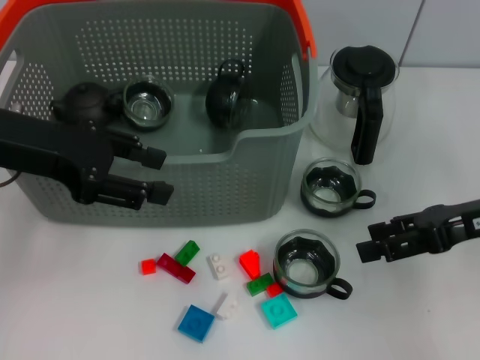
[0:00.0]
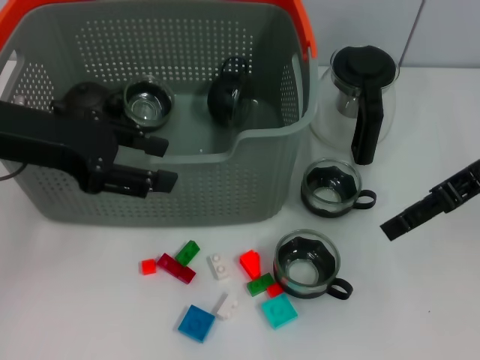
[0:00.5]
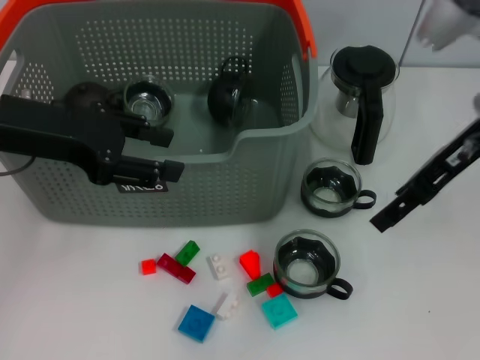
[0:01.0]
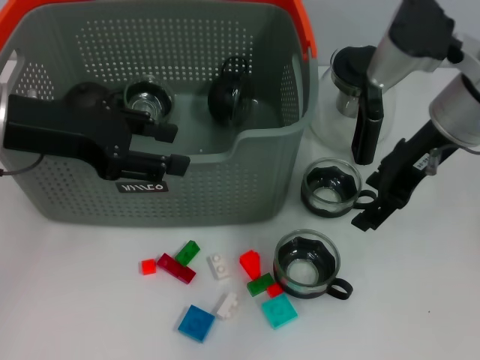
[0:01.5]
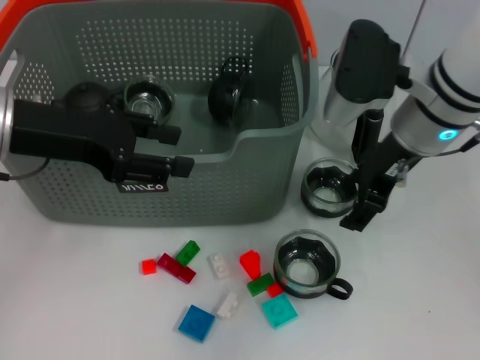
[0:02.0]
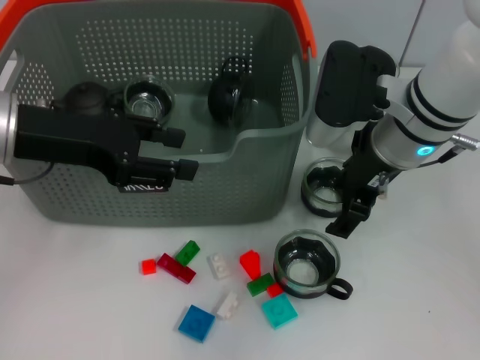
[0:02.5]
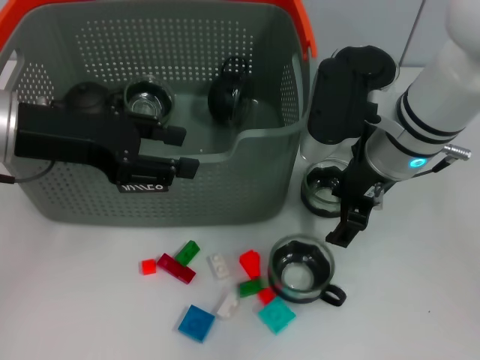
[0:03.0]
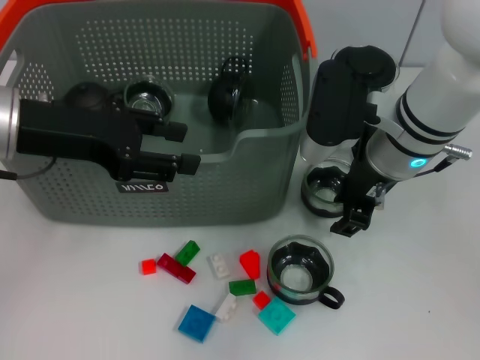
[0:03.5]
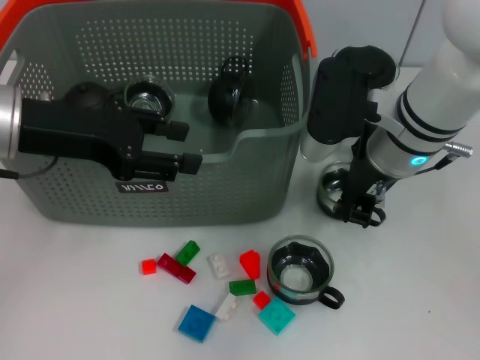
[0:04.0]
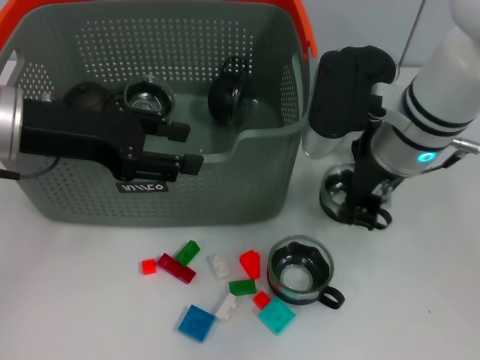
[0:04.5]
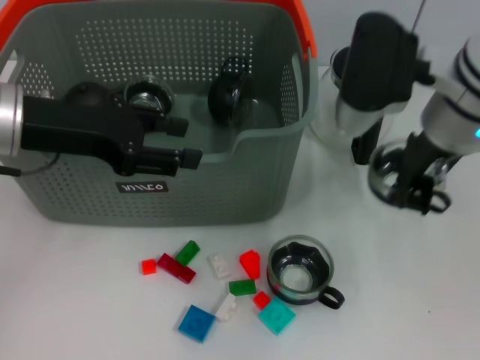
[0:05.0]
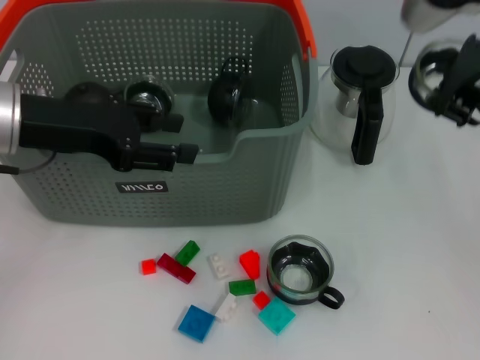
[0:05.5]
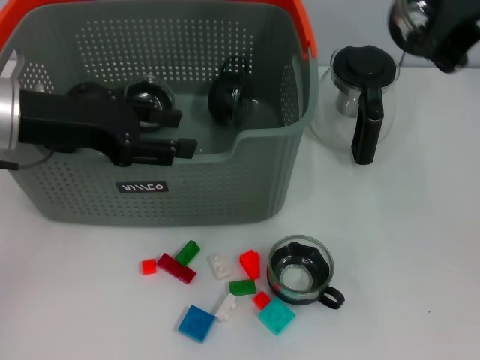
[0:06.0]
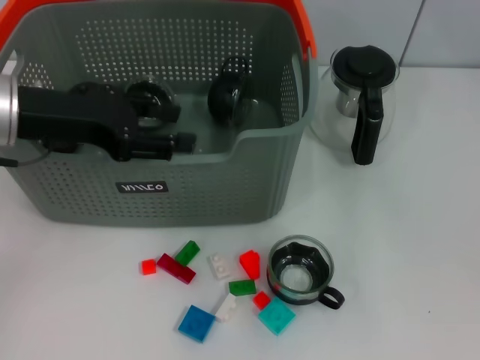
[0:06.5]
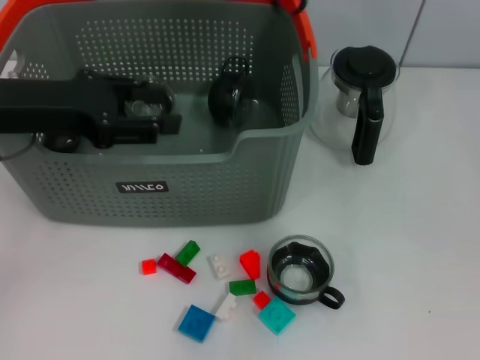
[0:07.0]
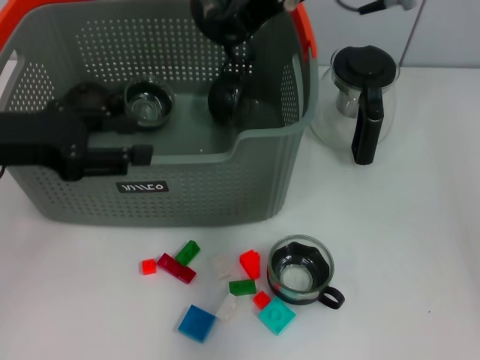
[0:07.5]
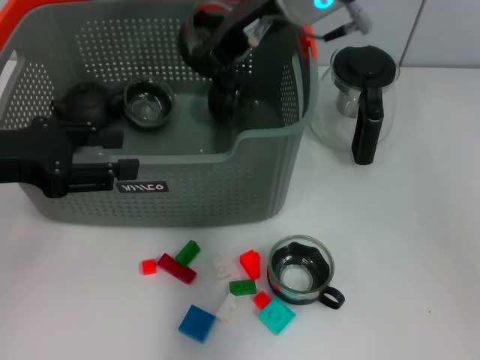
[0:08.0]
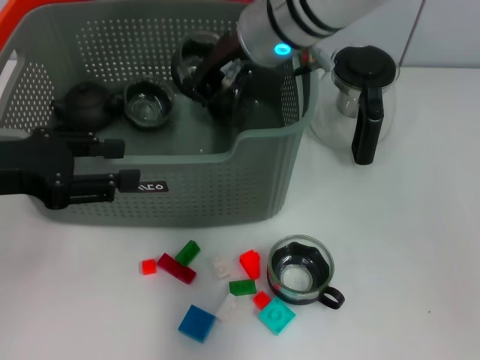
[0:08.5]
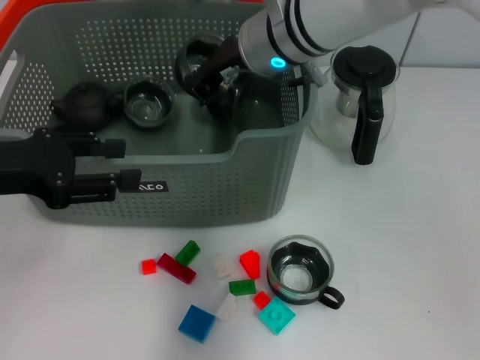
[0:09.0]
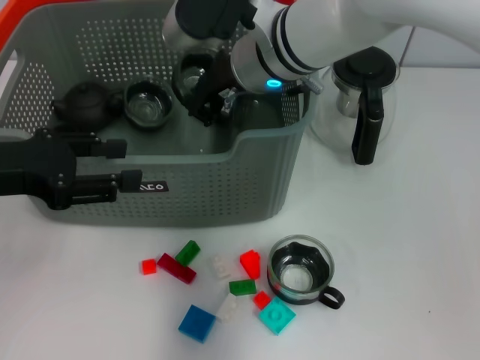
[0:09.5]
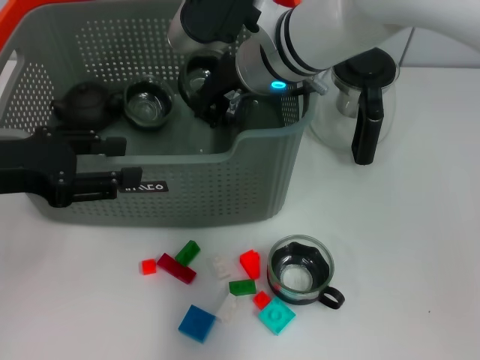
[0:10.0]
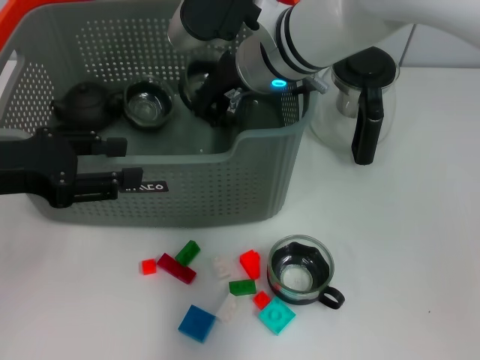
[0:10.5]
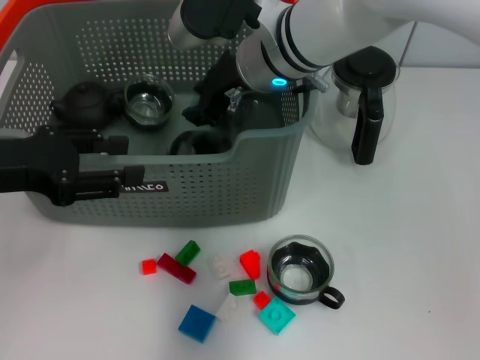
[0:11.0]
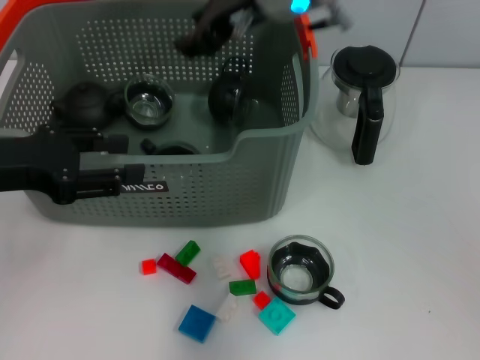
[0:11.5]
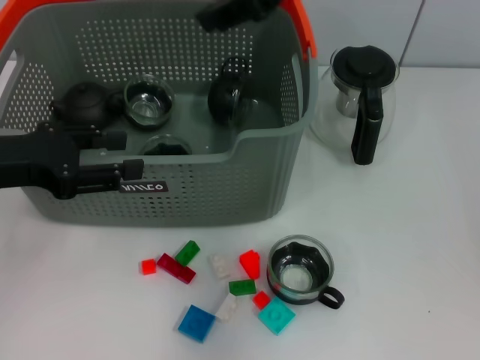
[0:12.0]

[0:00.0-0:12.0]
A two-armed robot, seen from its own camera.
Task of the whole recording: pick up the teacup on the table and place it into the storage bin, pick up the block on the table and place it into the storage bin.
Step, 0:00.0 to 0:03.5: Grasp the cup with right gripper.
Step, 0:04.0 to 0:11.5: Place the cup in the storage box with right gripper.
0:00.0 to 0:02.0: The right gripper moves to the left and forward, about 15 cm.
0:02.0 to 0:04.0: The right gripper closes up.
0:04.0 to 0:06.0: The right gripper heads upward, covering roughly 20 cm.
0:06.0 to 0:08.0: The right gripper travels to the left, forward and downward by about 15 cm. Meanwhile the left gripper shifts by about 5 cm.
0:08.0 to 0:10.0: The right gripper heads downward, covering approximately 10 cm.
0:10.0 to 0:12.0: The right gripper moves upward and to the right, approximately 20 cm, and opens up.

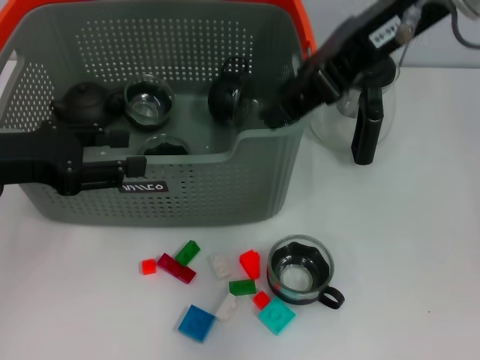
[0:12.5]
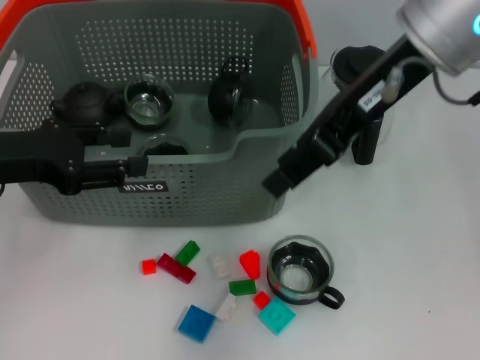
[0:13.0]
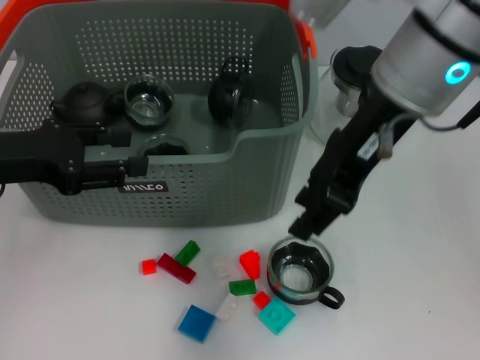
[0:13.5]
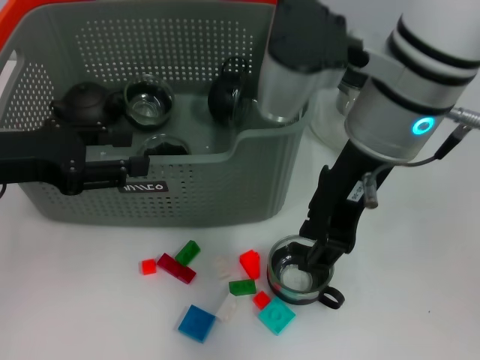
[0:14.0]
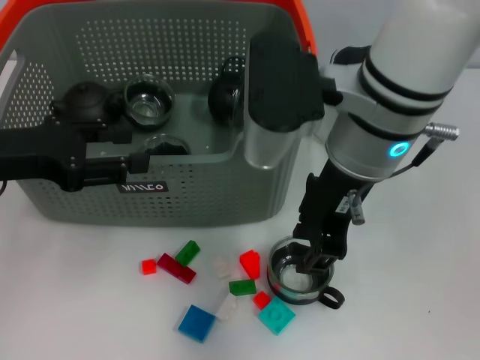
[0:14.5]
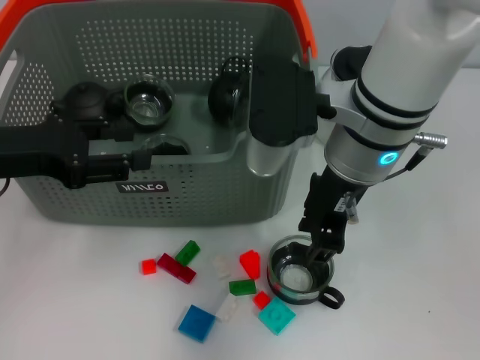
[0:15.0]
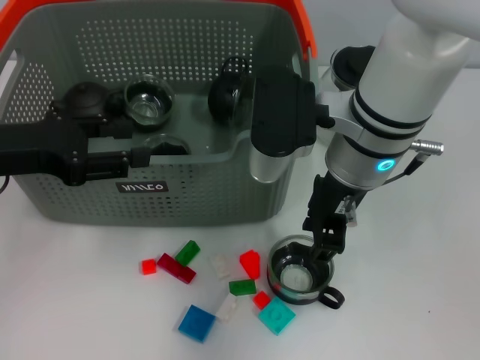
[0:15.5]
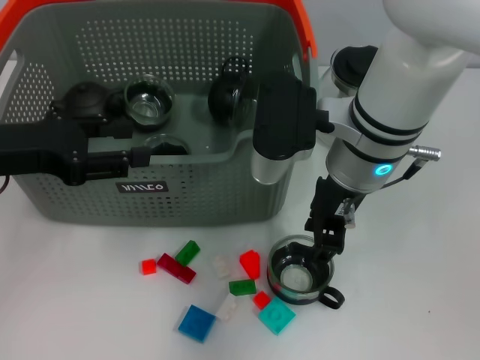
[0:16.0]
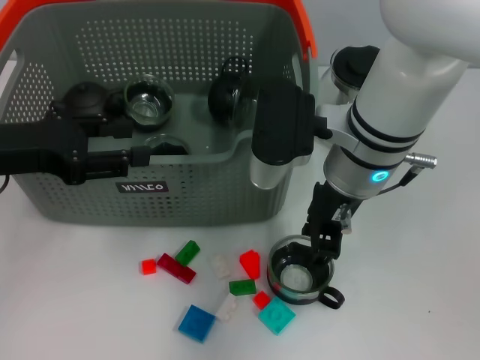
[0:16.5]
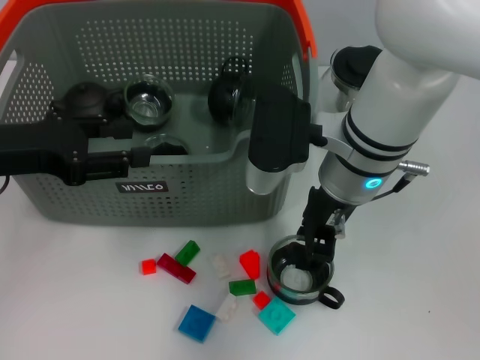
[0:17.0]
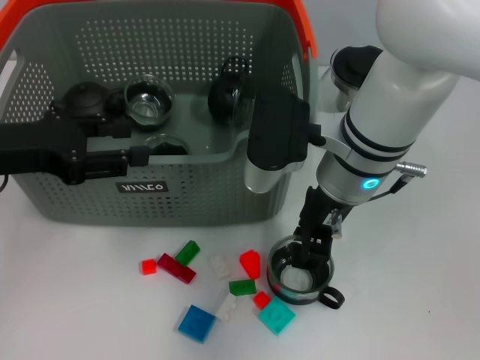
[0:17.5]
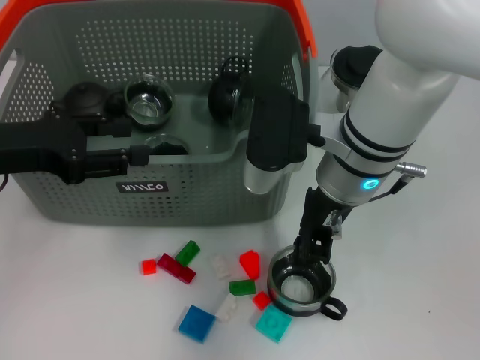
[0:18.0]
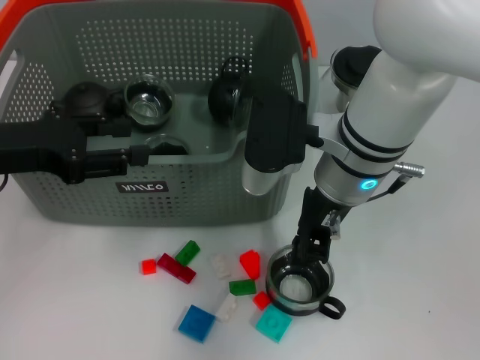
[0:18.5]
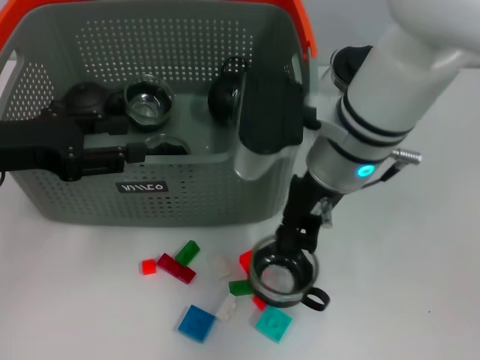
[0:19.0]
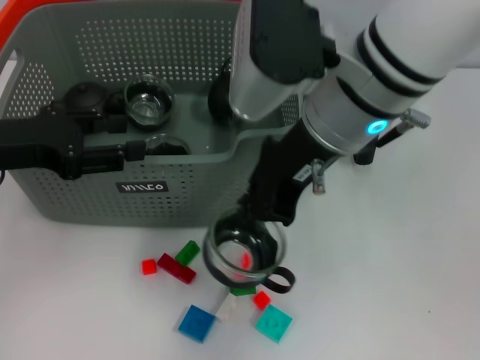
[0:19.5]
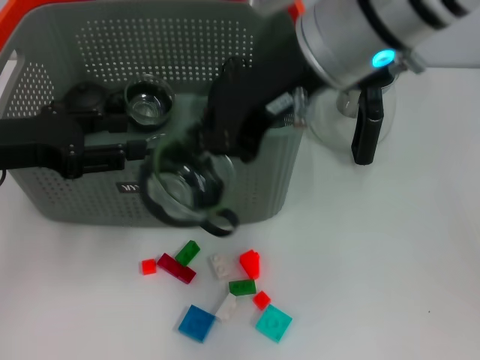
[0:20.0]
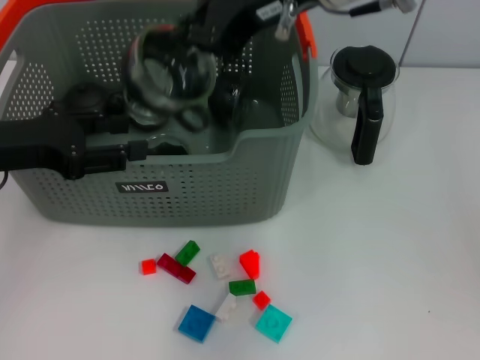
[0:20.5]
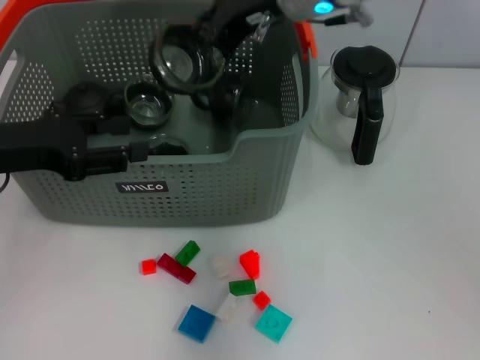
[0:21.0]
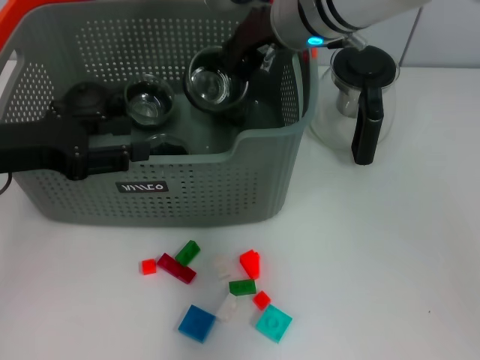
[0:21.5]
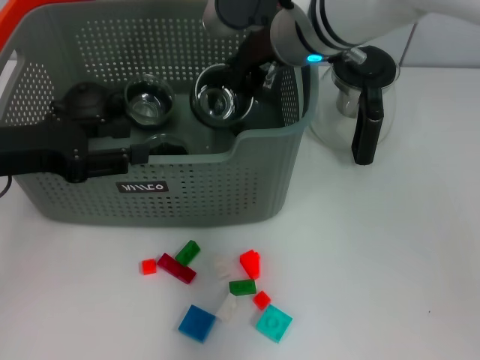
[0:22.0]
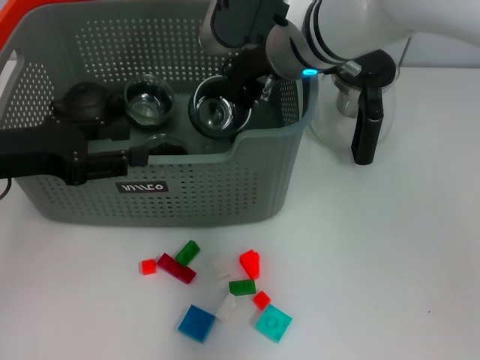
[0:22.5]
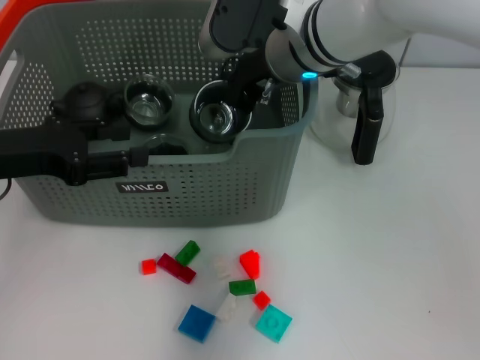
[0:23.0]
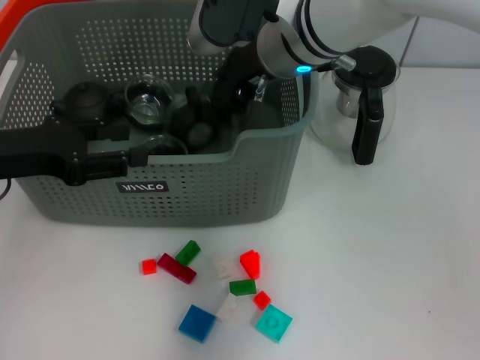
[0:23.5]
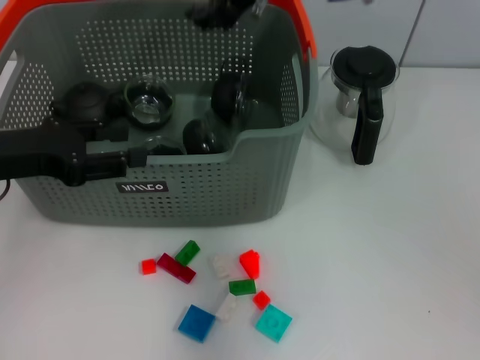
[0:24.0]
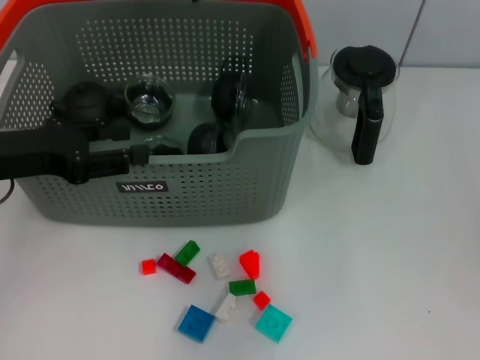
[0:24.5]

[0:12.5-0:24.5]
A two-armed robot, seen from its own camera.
Task of the whole recording: pick up the teacup on the table and place it into the storage bin, pick up the block on the table and place it into the storage bin.
Step, 0:12.5 to 0:18.0: Grasp the cup with right gripper.
Step, 0:18.5 to 0:24.0: Place the cup in the storage box with right gripper.
0:12.5 to 0:14.5: The right gripper heads downward and to the left, covering some 15 cm.
0:14.5 to 0:16.5: The right gripper heads downward, covering approximately 5 cm.
0:16.5 to 0:18.5: The right gripper closes up.
0:18.5 to 0:20.5: The right gripper shifts roughly 15 cm upward.
0:20.5 to 0:22.5: The right gripper moves downward and forward, some 15 cm.
0:22.5 to 0:24.5: The right gripper is displaced upward by some 15 cm, and opens its fingers.

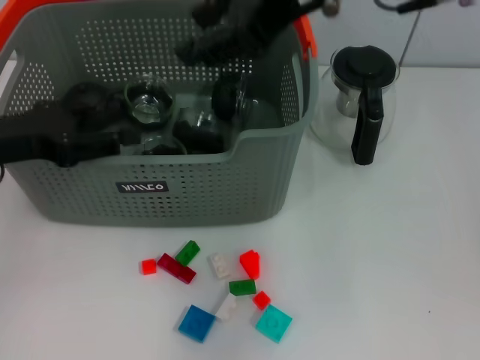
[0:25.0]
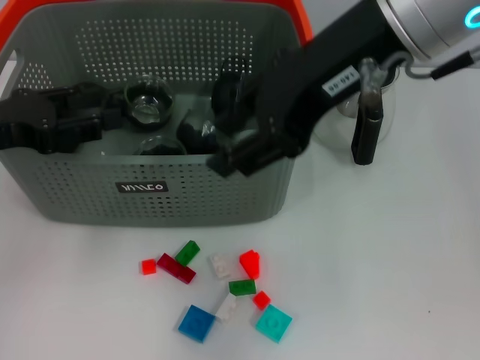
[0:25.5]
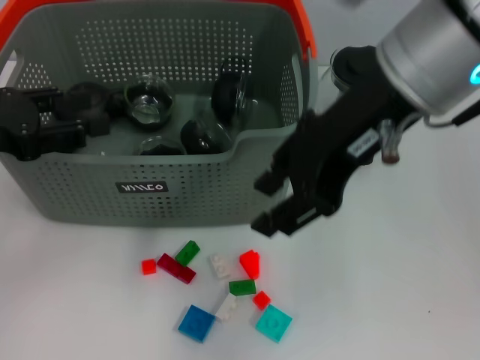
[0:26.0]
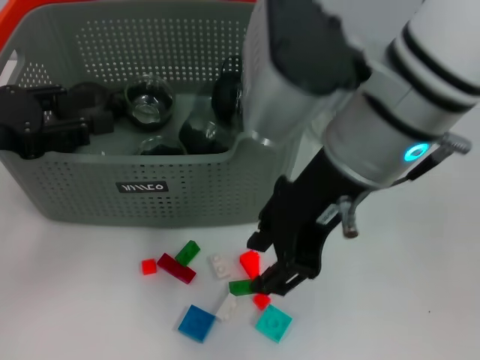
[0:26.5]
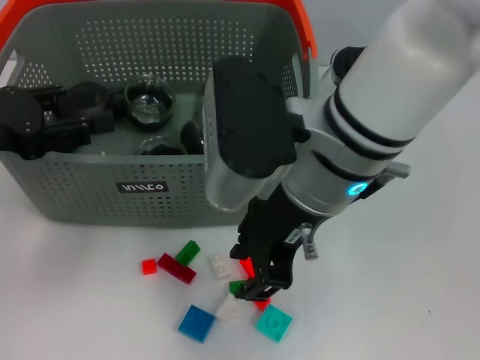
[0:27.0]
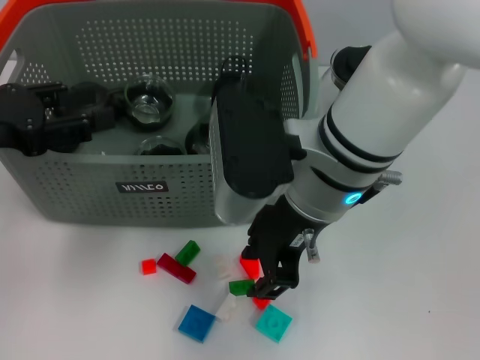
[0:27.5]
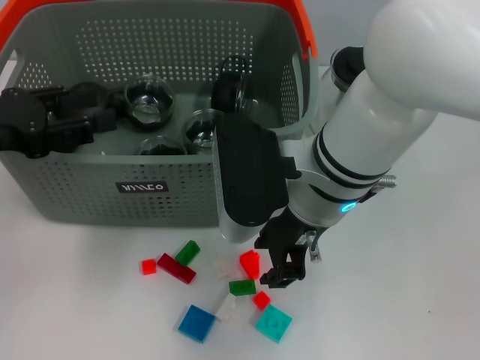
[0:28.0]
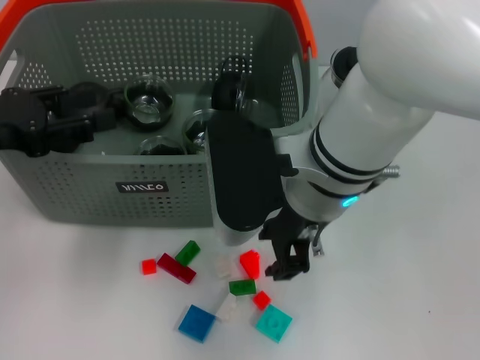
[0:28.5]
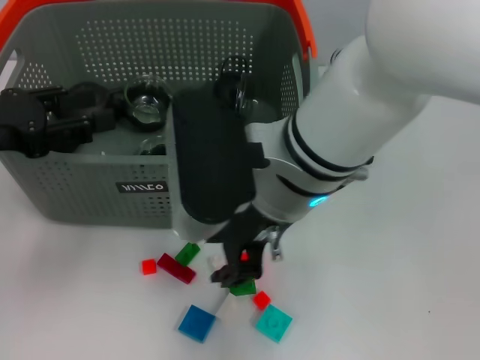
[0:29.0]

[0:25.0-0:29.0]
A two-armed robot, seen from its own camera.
Task of the whole recording: pick up the teacup on the table and place it into the storage bin, pick up the block on the table and place it into the storage bin.
0:25.0 to 0:27.0: The right gripper shifts about 15 cm downward and to the left.
0:27.0 to 0:29.0: The grippers move only a little.
